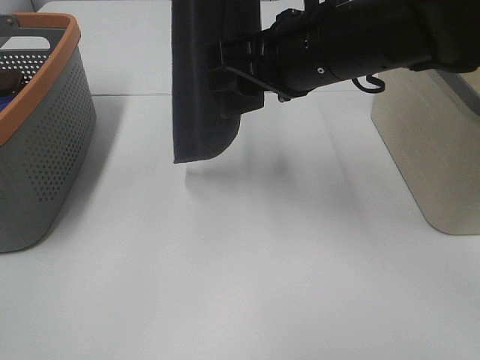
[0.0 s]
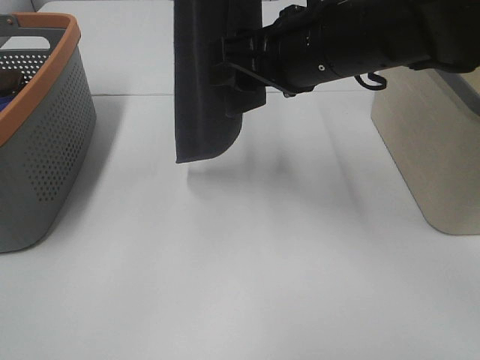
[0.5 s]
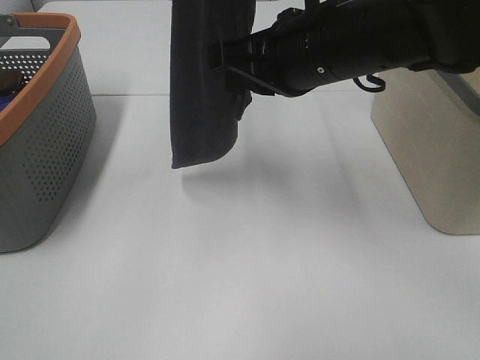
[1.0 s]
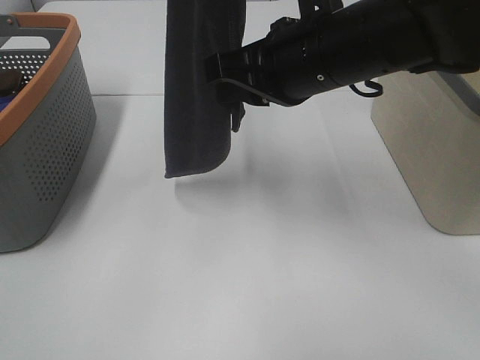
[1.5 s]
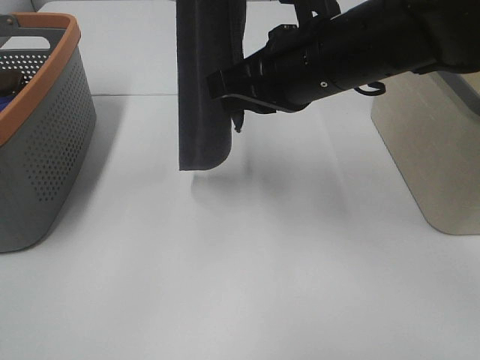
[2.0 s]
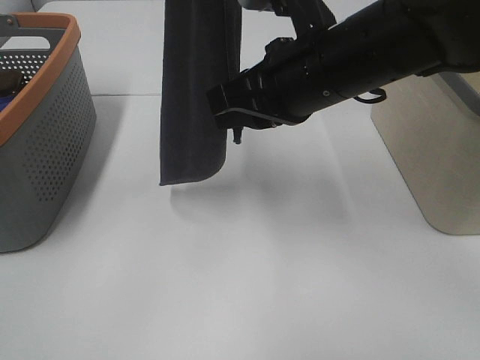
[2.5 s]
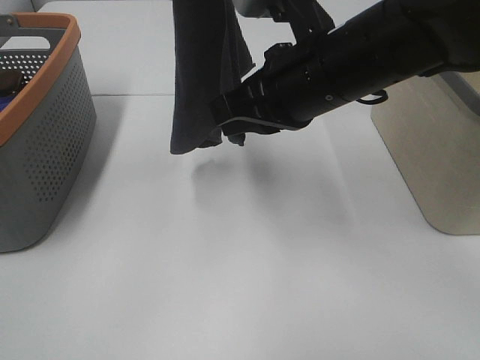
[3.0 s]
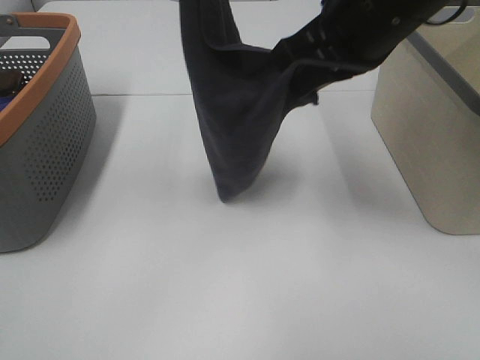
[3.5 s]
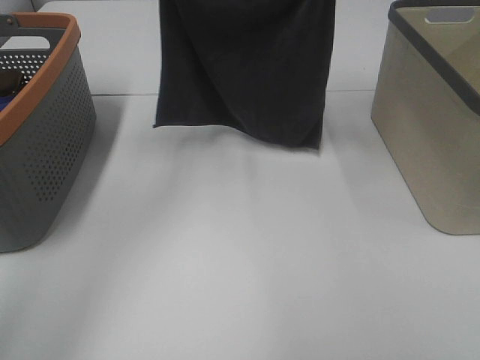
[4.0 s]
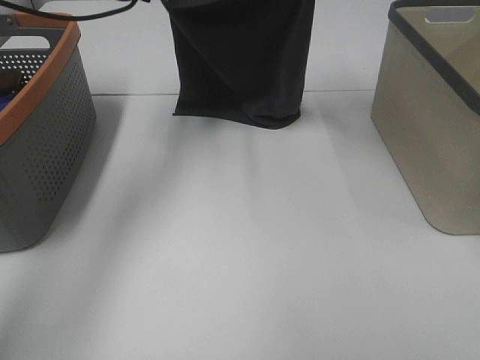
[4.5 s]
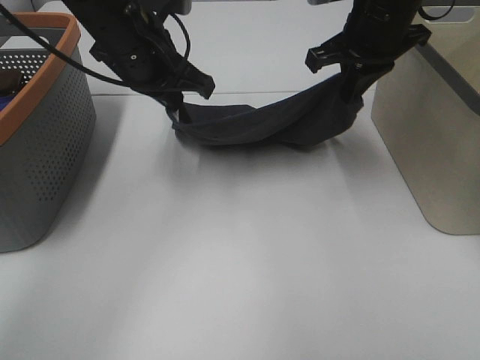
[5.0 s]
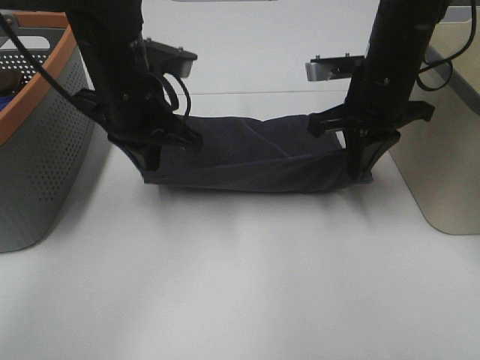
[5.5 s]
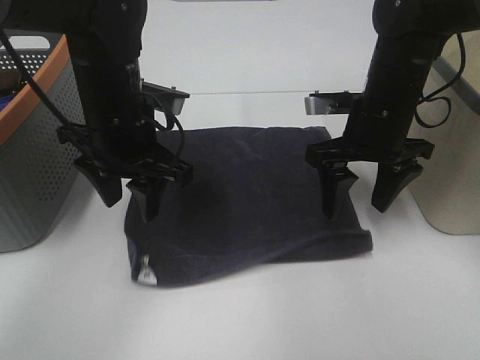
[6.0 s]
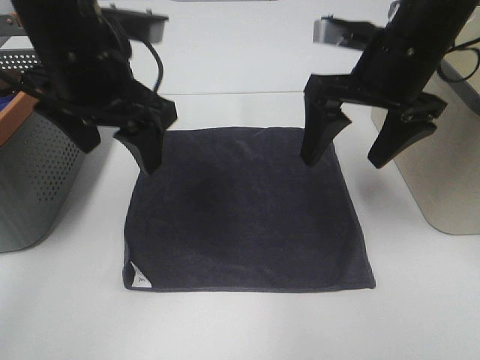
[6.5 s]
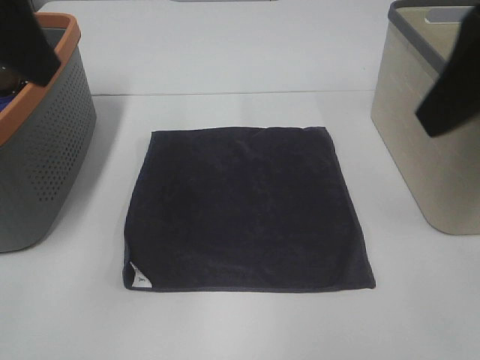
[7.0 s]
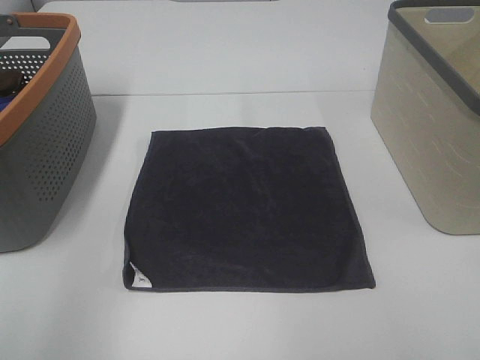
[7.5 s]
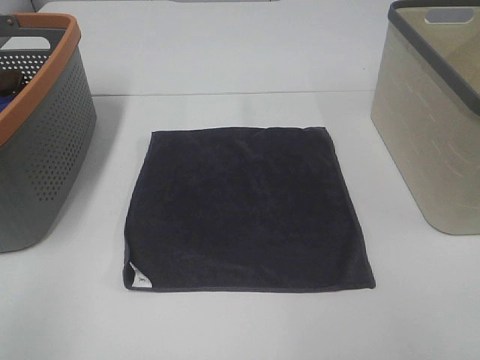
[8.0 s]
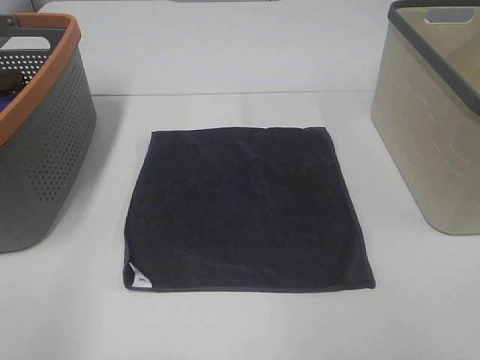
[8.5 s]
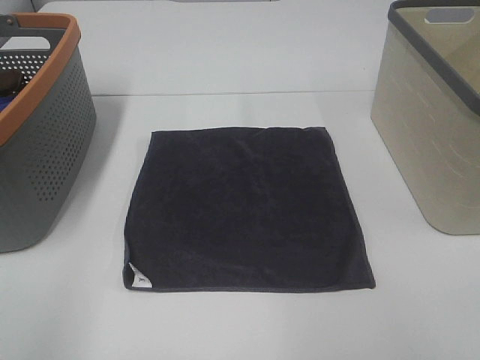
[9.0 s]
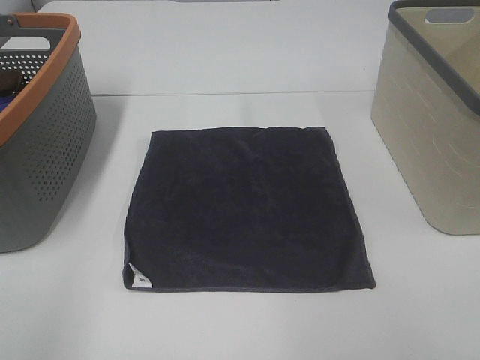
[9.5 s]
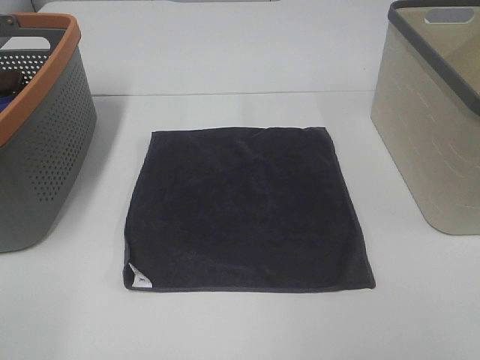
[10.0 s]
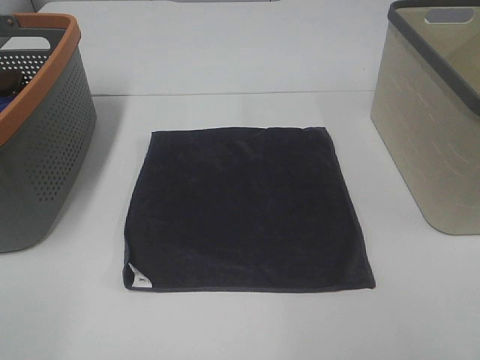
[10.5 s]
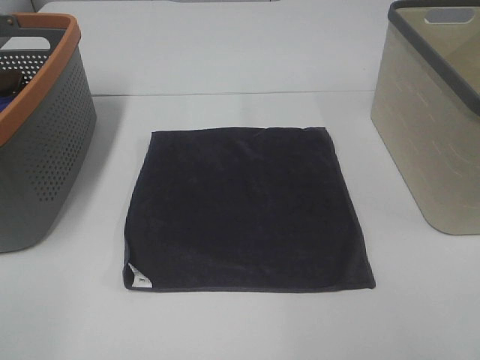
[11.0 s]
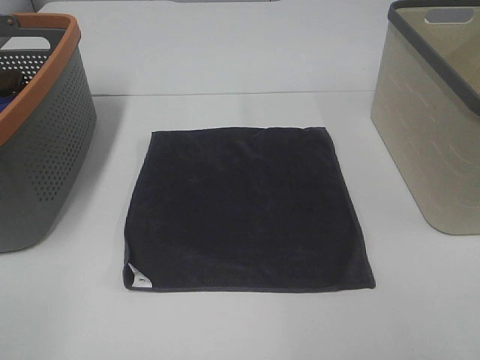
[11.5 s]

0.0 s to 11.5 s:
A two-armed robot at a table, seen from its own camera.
Task of the whole recording: Remove the towel and place it.
0.0 to 2.0 s: The right gripper closes its fingers.
2.0 to 4.0 s: The left gripper moves forward and downward, roughly 15 cm. The right gripper heads forward, upward and to the right, covering about 20 cm.
4.0 to 6.0 s: The right gripper travels downward by some 20 cm, and opens its fingers. Meanwhile the left gripper heads downward and backward, covering some 20 cm, and opens up.
6.0 to 7.5 s: The left gripper goes some 30 cm backward, to the left and upward; the right gripper moves backward and upward, some 30 cm.
